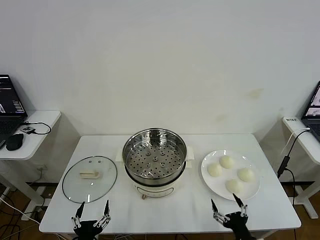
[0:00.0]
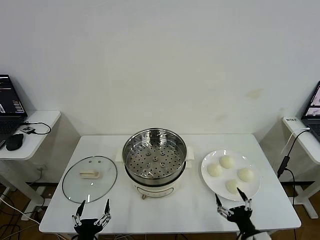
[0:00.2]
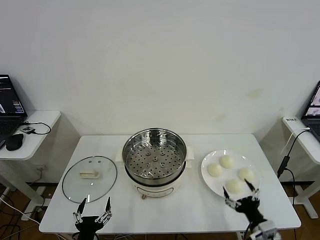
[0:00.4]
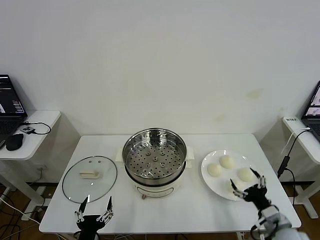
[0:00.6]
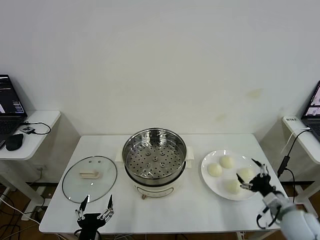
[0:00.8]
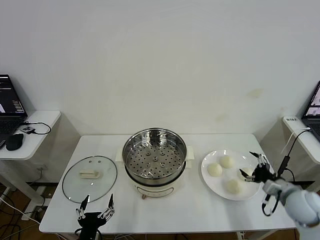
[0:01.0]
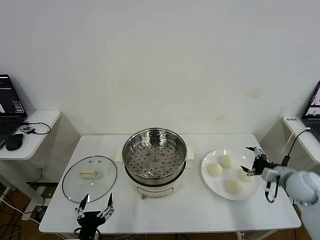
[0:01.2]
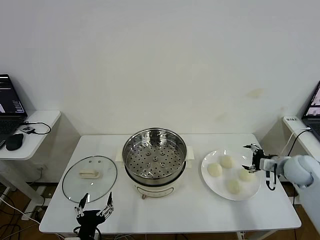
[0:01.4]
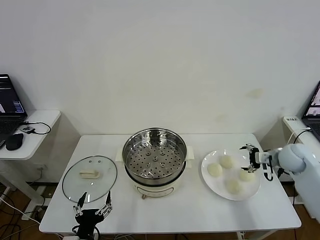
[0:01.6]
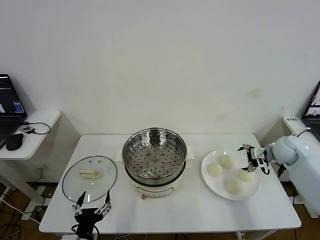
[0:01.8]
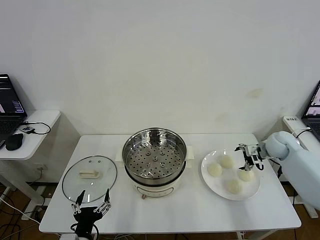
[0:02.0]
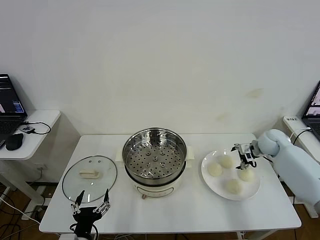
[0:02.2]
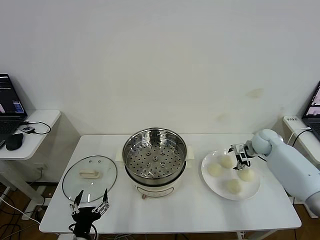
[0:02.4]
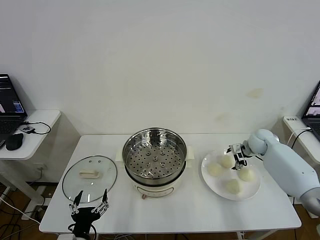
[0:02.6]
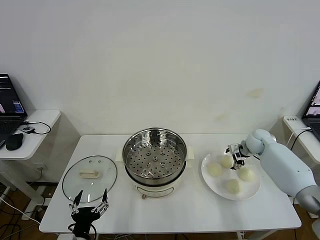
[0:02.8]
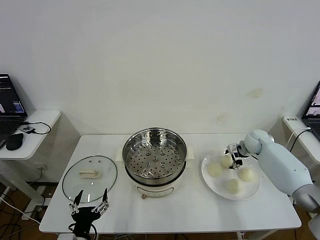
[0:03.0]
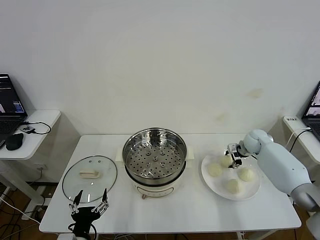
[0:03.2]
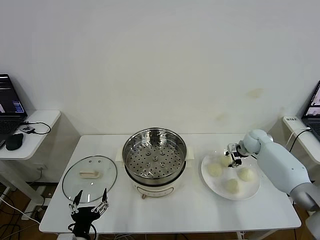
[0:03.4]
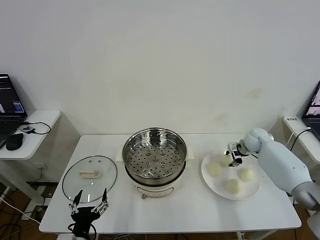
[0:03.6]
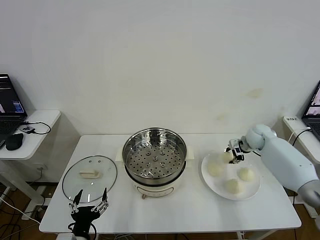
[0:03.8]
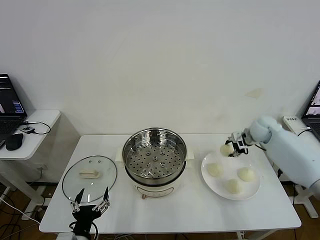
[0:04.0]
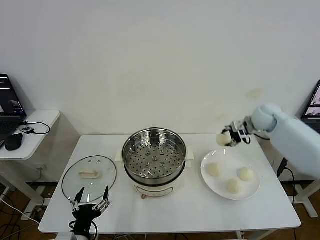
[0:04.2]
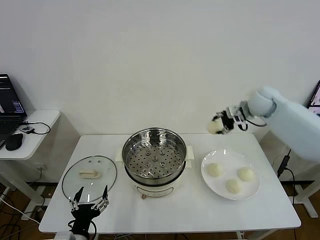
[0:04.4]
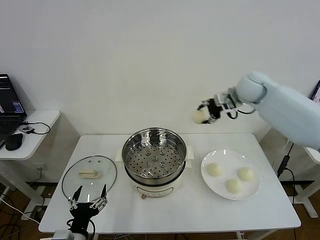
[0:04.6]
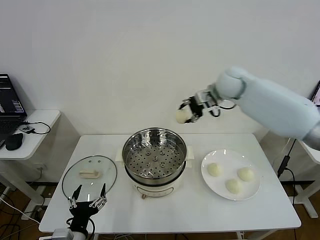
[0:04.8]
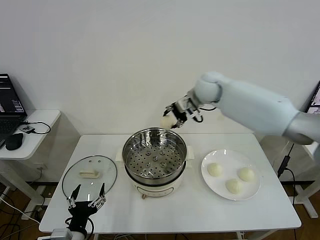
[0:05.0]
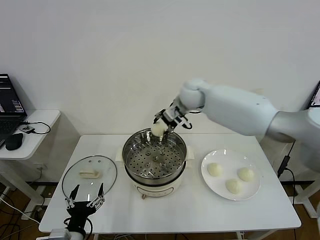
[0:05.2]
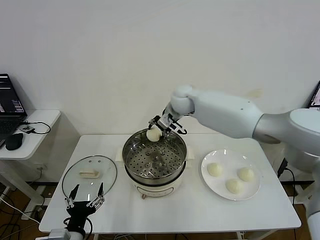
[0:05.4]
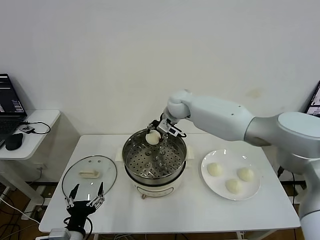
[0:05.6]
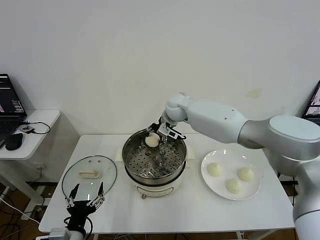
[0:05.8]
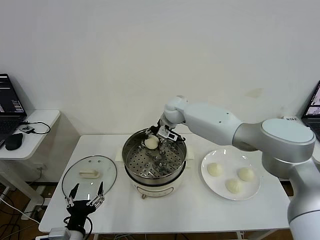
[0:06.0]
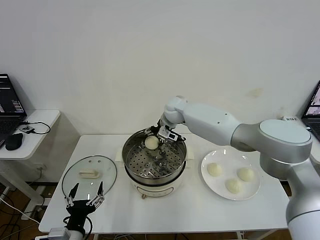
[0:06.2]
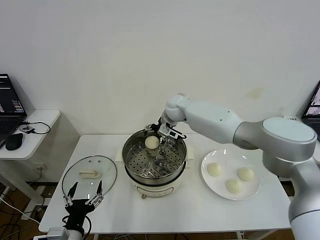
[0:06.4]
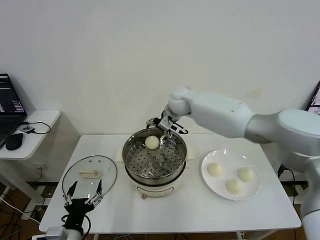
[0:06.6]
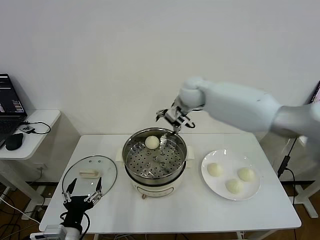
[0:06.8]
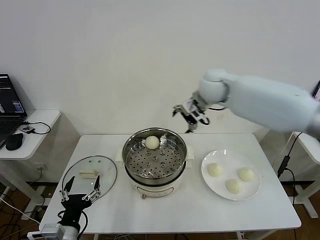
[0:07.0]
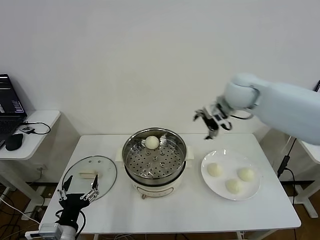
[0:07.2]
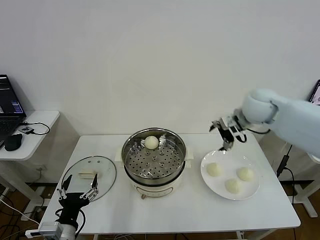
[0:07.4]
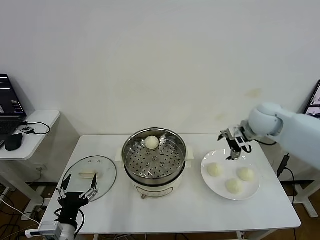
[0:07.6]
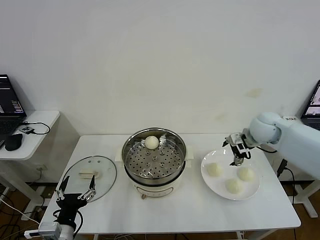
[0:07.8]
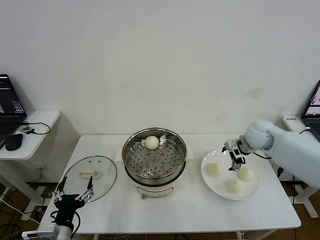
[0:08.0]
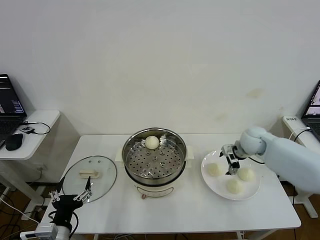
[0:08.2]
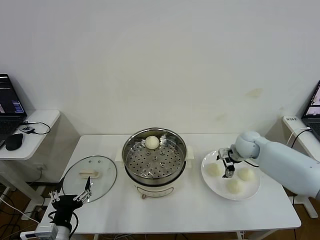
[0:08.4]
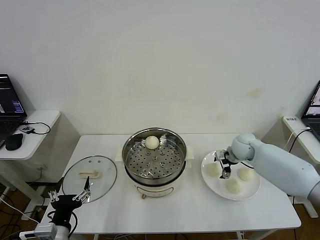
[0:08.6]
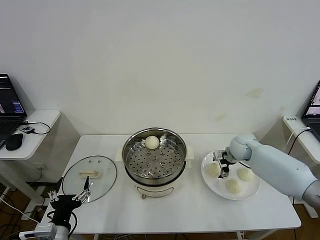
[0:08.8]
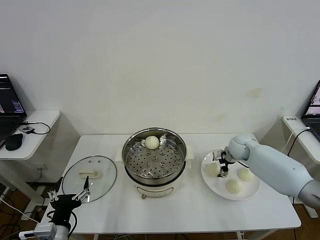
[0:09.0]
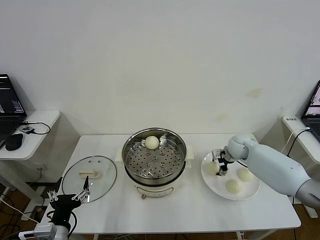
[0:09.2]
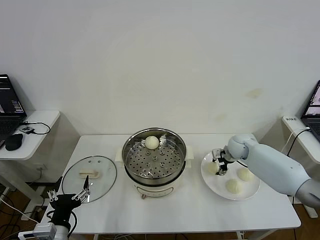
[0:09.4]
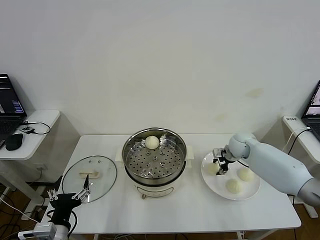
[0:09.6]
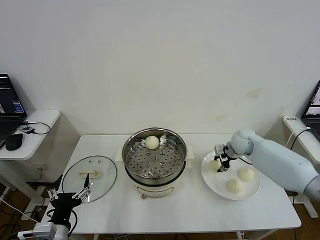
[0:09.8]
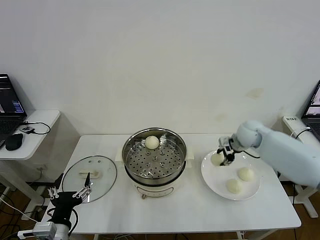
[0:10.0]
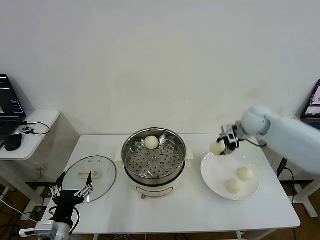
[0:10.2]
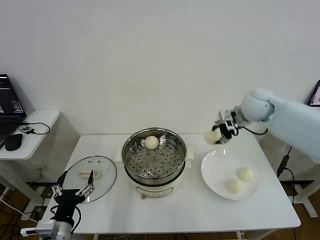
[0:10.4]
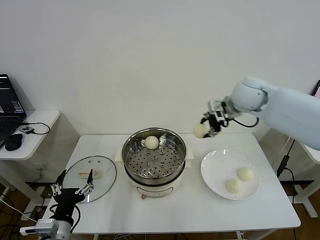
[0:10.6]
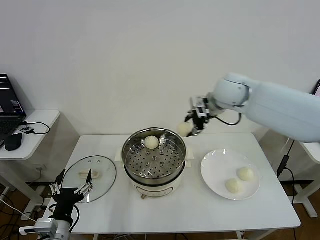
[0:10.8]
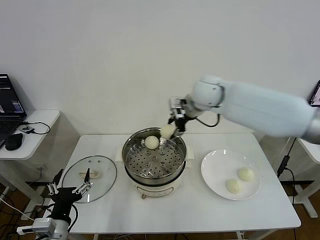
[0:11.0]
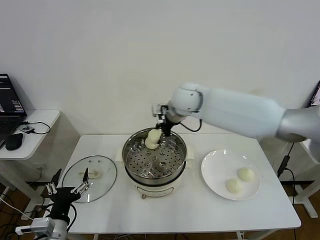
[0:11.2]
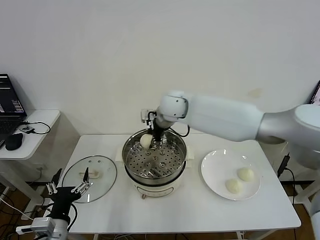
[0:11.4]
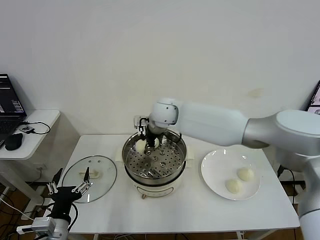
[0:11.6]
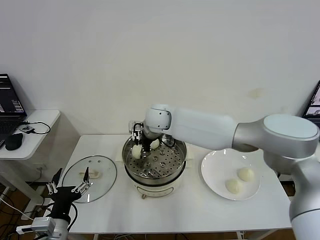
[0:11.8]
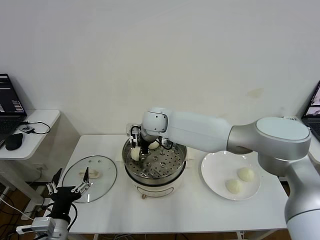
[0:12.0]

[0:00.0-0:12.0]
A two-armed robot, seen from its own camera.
Step, 0.0 to 3.2 s: Grasp the baozi in the plate with right gripper.
Step, 3.6 to 6.2 s: Place the baozi on the steamer with right gripper.
Step, 6.4 to 9.4 s: Grasp the baozi in the plate with right gripper.
1.6 to 3.0 s: The right gripper goes roughly 15 cm forward, to the left and downward, and closes up.
3.0 to 4.4 s: The right gripper moves upward, about 25 cm.
4.4 to 6.0 s: The right gripper is displaced to the left by approximately 25 cm.
6.0 to 7.6 s: The right gripper heads to the right and backward, covering roughly 30 cm, and opens its fingers.
7.6 to 9.0 s: The right gripper goes some 15 cm downward.
9.0 to 10.4 s: The right gripper goes approximately 25 cm upward, and closes up.
10.4 to 12.0 s: The right gripper heads to the left, covering roughly 30 cm.

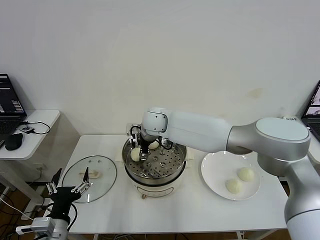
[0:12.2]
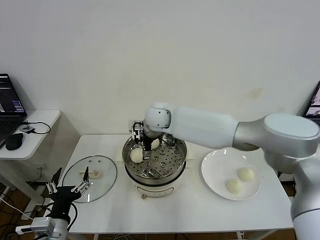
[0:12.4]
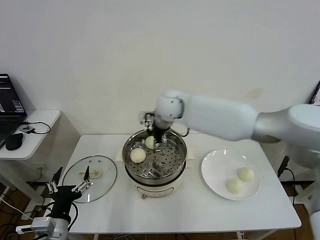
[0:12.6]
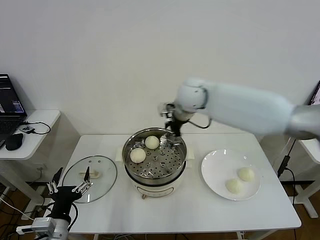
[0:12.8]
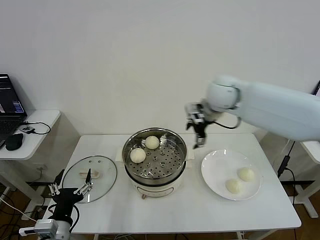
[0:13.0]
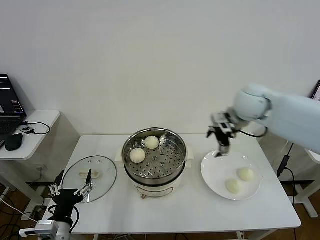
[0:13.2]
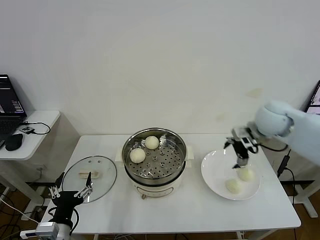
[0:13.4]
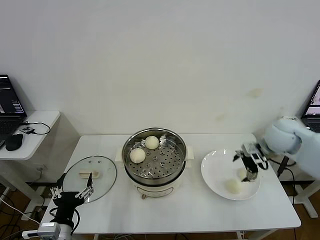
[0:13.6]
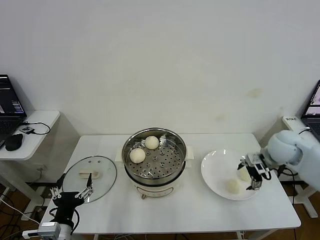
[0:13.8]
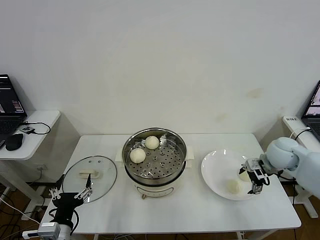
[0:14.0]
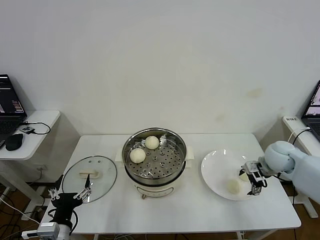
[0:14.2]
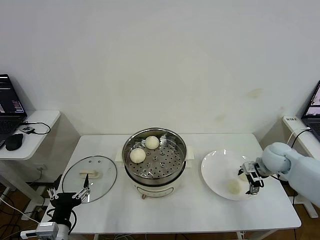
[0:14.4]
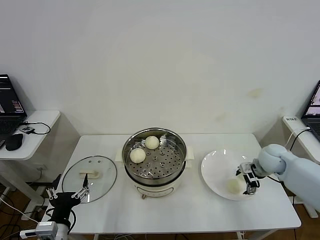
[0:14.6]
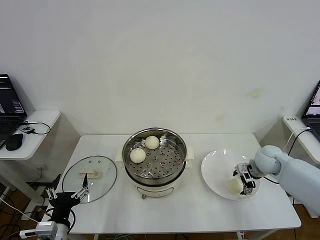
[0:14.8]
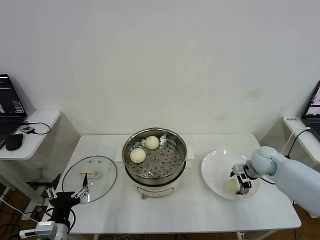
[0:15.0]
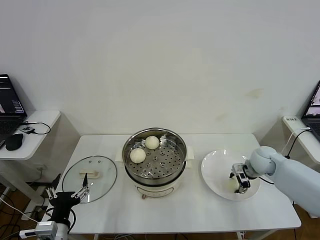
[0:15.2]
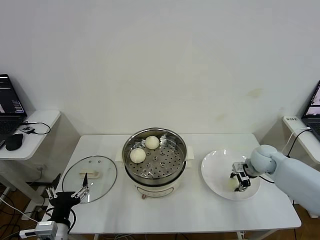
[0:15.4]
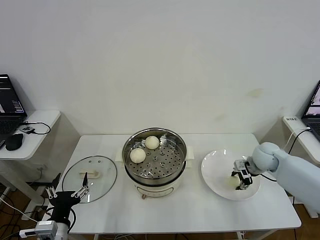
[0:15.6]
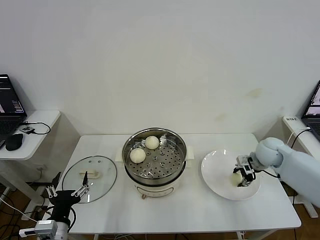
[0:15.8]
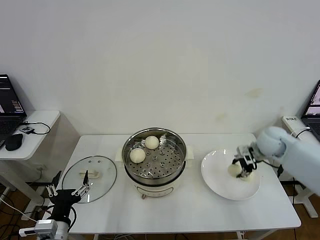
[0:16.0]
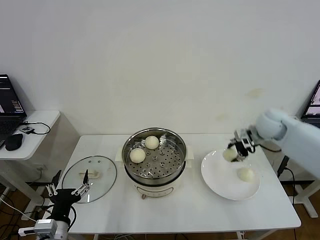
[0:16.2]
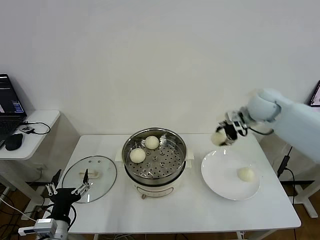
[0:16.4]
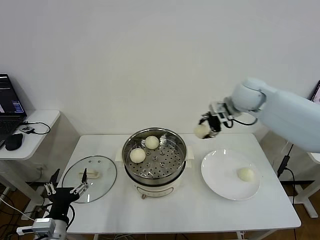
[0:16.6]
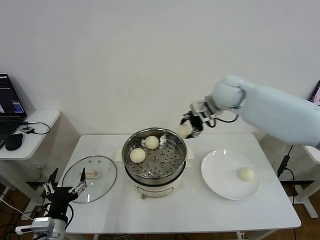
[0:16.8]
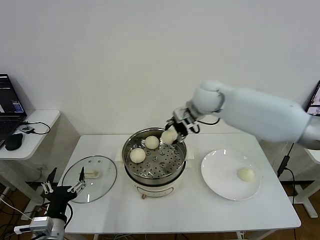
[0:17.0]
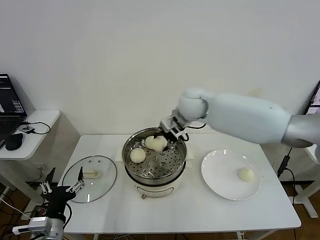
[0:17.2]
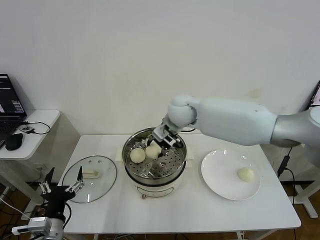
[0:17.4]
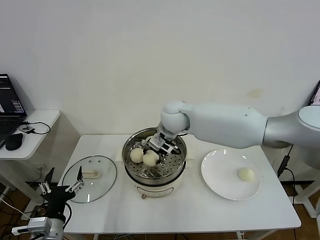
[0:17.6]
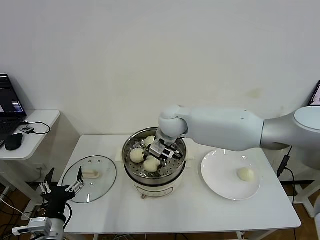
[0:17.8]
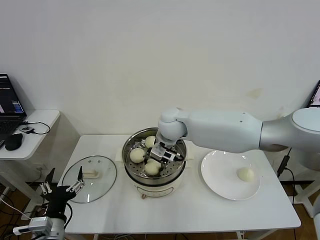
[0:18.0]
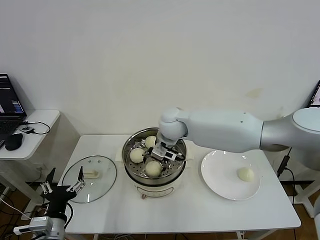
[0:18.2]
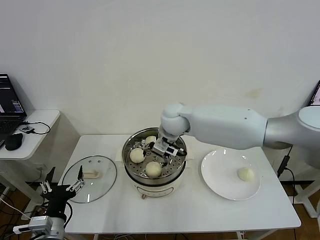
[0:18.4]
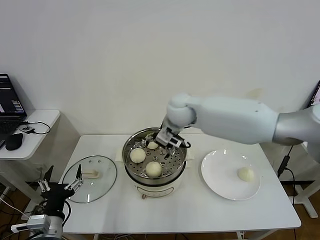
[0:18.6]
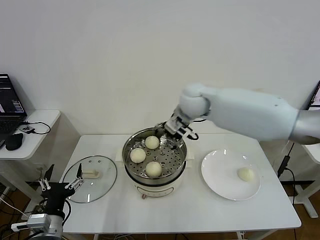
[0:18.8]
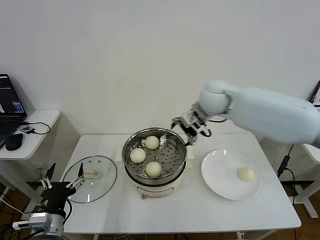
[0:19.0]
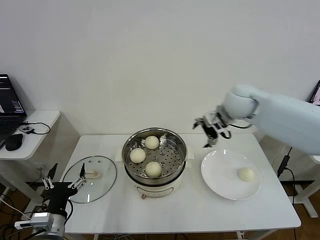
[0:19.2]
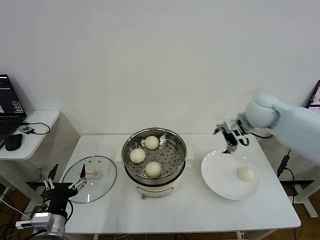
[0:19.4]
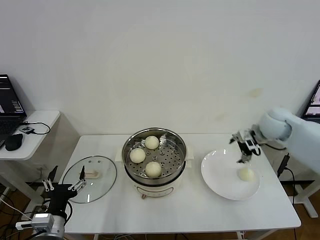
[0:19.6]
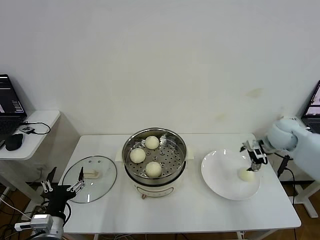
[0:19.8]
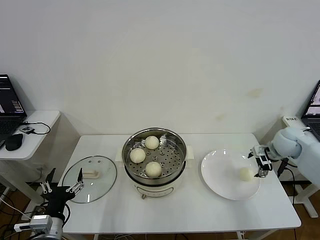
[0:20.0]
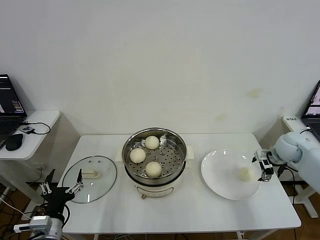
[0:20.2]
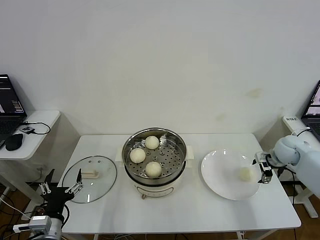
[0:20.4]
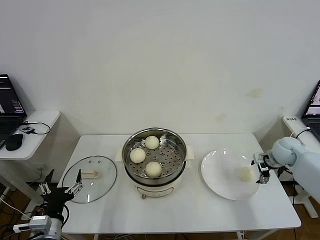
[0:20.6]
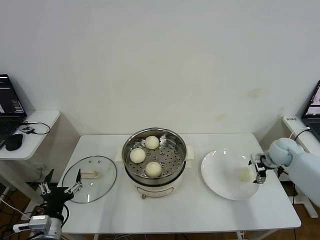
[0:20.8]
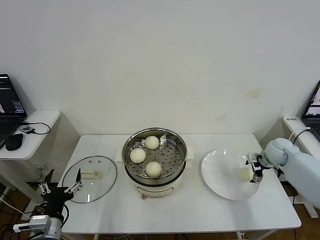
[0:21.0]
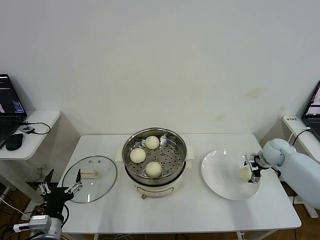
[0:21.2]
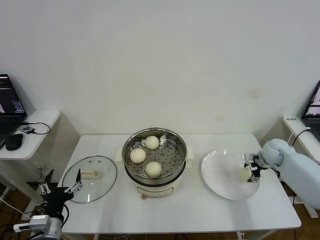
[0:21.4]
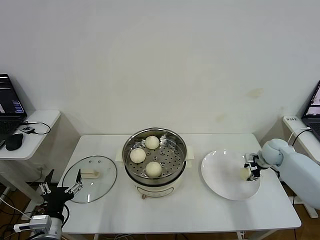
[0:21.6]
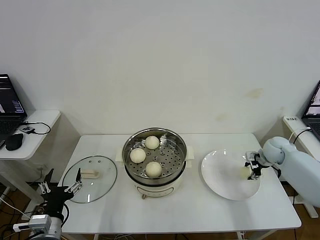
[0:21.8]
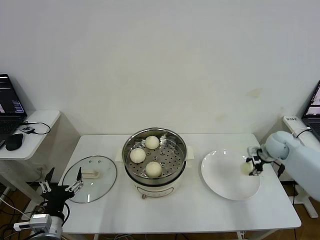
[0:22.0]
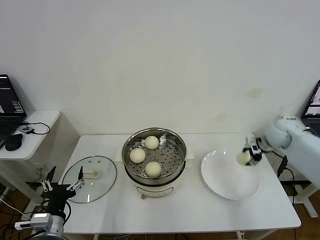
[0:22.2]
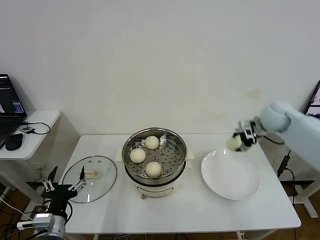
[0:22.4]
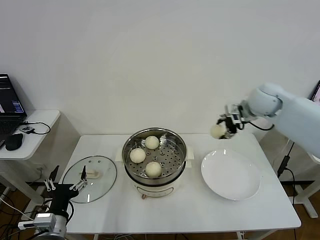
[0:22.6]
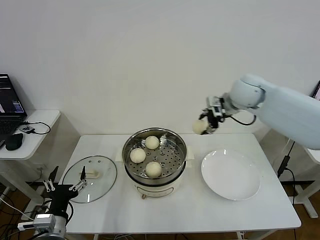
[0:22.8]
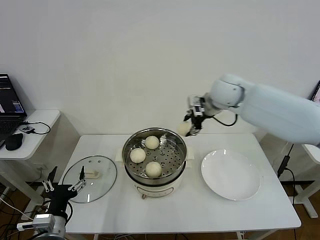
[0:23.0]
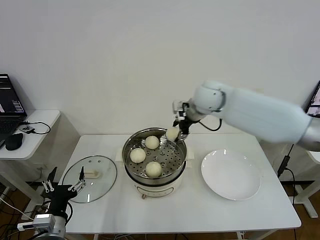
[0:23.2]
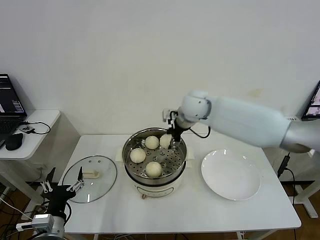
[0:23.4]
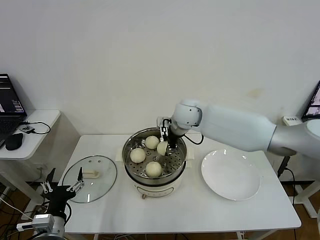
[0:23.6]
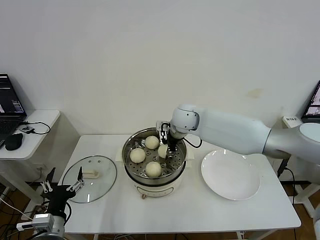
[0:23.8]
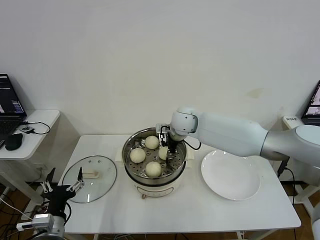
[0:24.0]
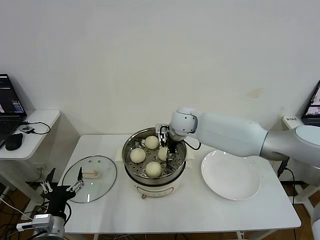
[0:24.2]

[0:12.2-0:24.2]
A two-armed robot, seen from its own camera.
Step, 12.4 to 15.4 s: Grasp the baozi in the plate with right gripper.
Step, 15.6 to 18.2 s: Place the baozi on the steamer with right gripper.
Step, 18.4 to 21.6 s: Grasp the baozi in the plate with right gripper.
12.2 to 13.8 s: The right gripper is displaced to the right by about 40 cm.
13.8 to 15.2 s: The right gripper moves downward, about 10 cm, and closes its fingers.
15.2 to 16.6 s: The right gripper travels upward and to the left by about 25 cm.
16.6 to 18.2 s: The right gripper shifts some 20 cm to the left and downward, and opens its fingers.
18.2 to 19.8 s: The right gripper travels to the right by roughly 35 cm.
19.8 to 21.2 s: The right gripper heads downward, covering about 10 cm.
21.2 to 22.6 s: The right gripper goes approximately 25 cm upward and to the left, and closes.
22.6 to 24.2 s: The right gripper shifts approximately 25 cm to the left and downward, and opens up.
